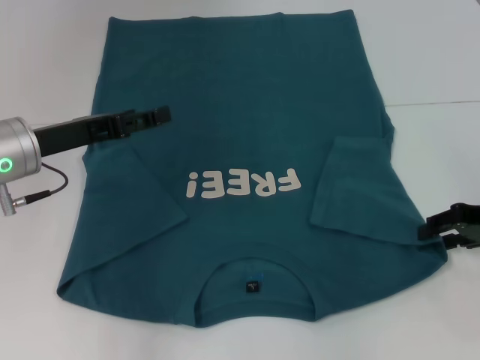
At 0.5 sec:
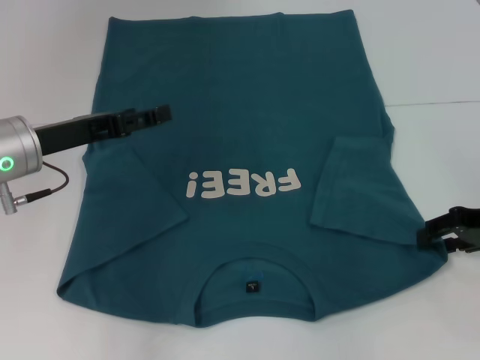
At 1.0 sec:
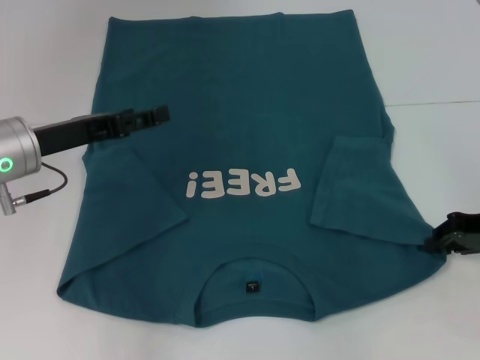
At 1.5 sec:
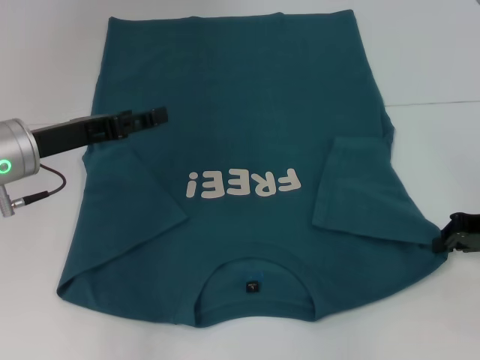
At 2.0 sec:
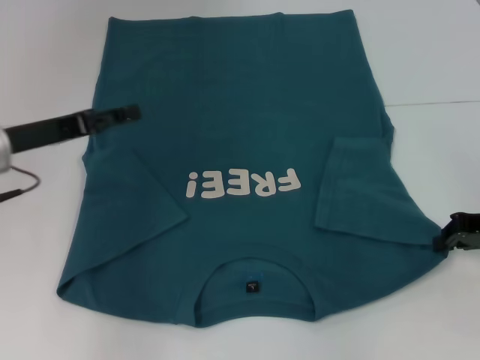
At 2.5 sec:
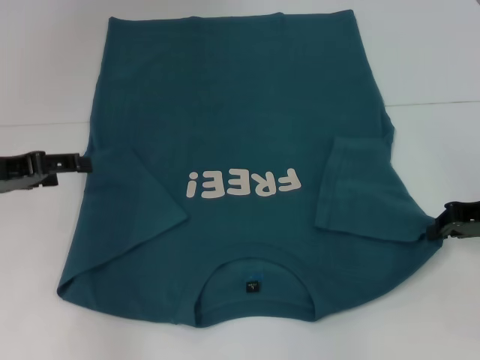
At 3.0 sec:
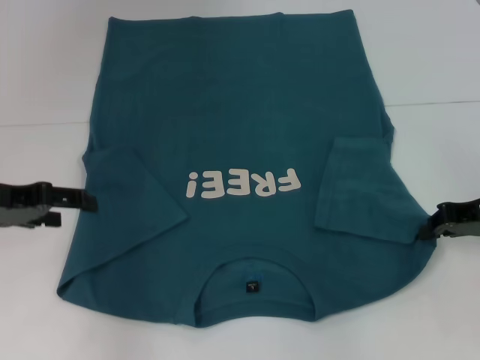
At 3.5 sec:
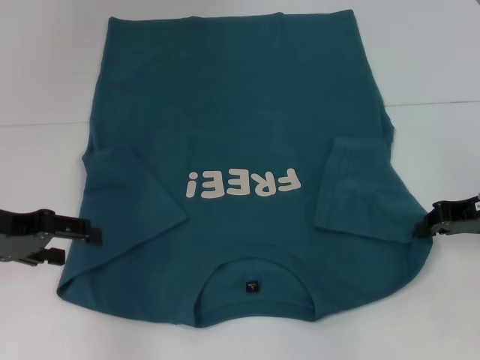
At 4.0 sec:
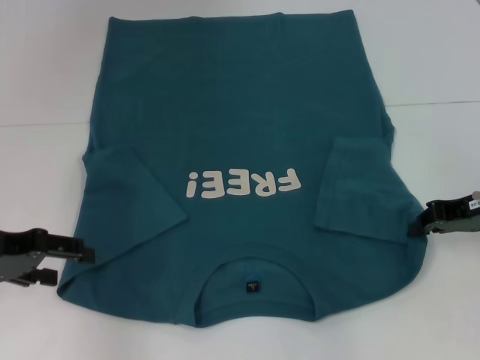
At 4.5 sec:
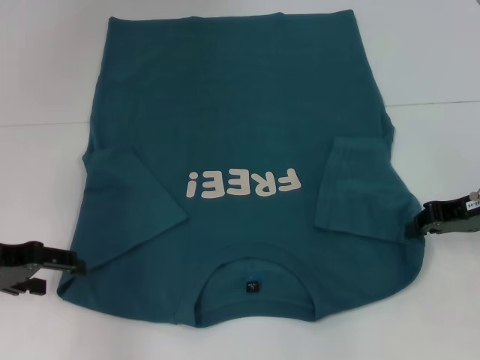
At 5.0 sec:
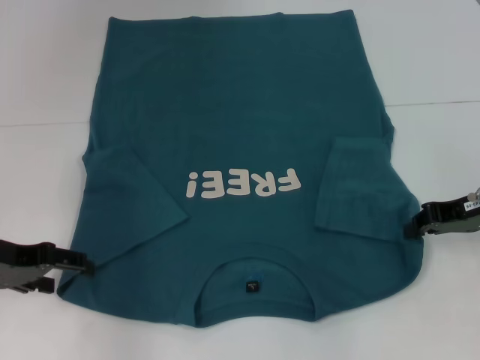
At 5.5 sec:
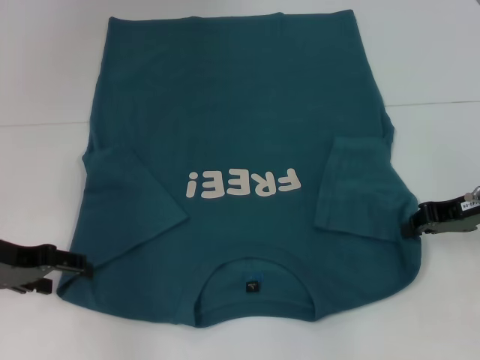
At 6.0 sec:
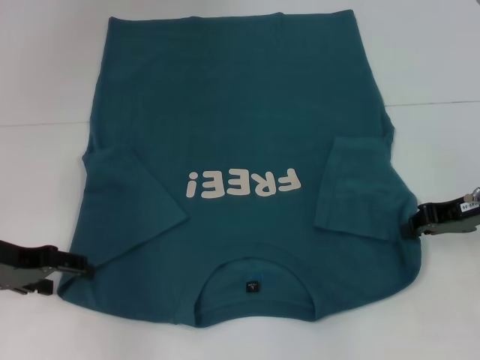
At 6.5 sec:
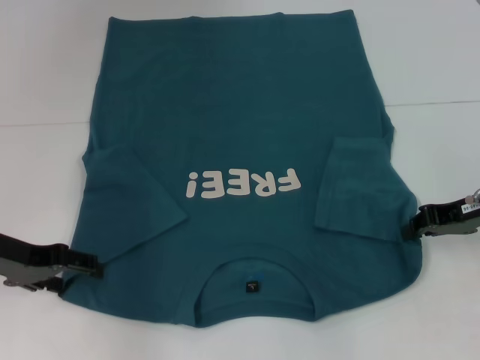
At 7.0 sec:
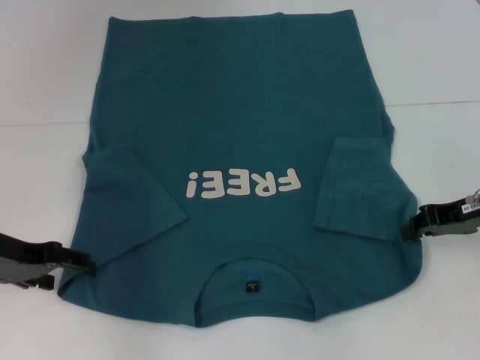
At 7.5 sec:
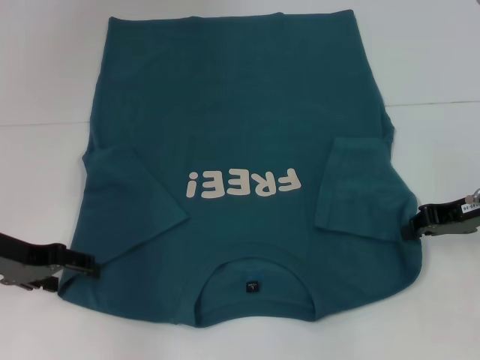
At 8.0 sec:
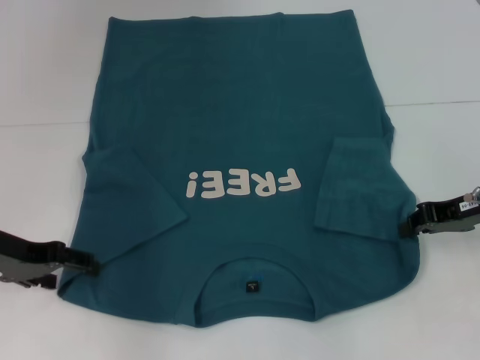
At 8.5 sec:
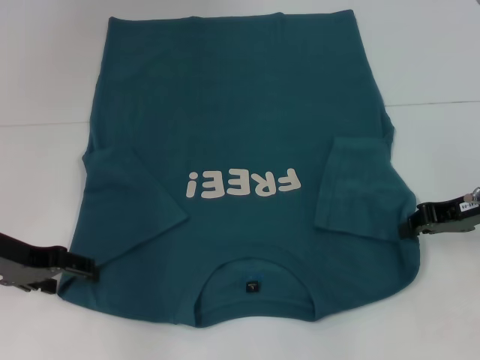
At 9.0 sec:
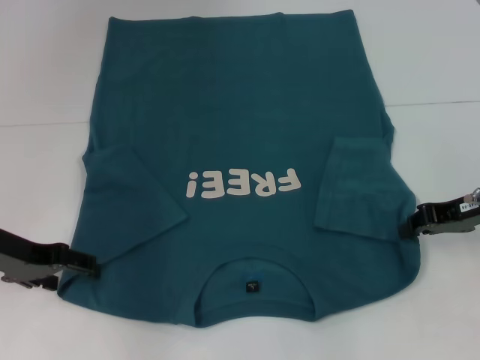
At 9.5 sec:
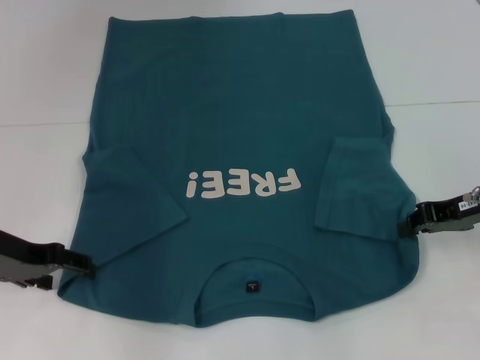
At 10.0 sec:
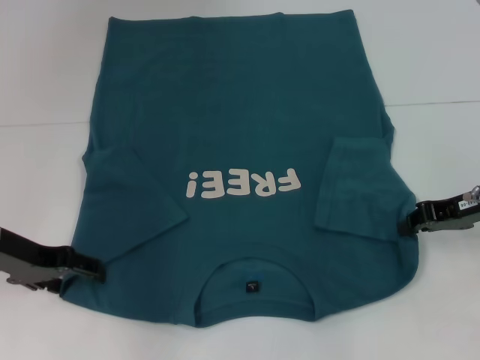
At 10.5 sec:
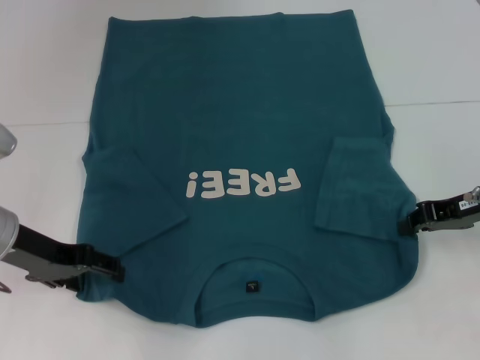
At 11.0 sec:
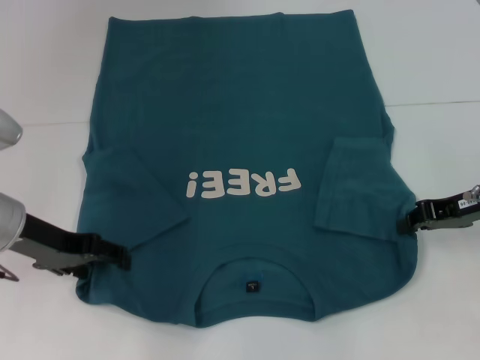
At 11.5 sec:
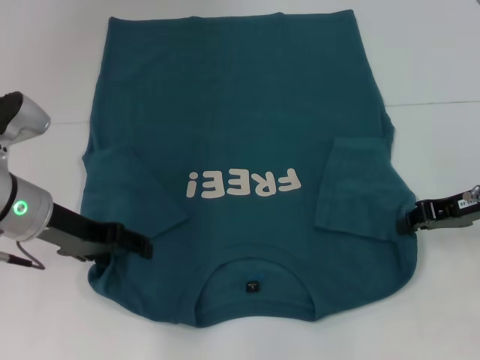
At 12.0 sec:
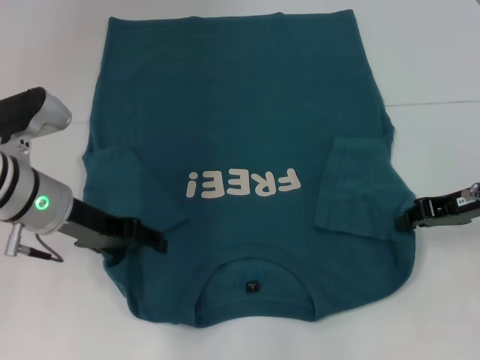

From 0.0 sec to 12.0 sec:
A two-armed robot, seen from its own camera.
From 0.0 sec to 2.0 sec: The right gripper closes.
From 2.0 sec to 4.0 sec: The left gripper is displaced backward by roughly 5 cm.
From 4.0 sec to 6.0 sec: The grippers move only a little.
From 6.0 sec to 8.0 sec: Both grippers stay put.
From 8.0 sec to 10.0 sec: The two grippers keep their place.
From 10.0 sec to 12.0 sec: The left gripper is displaced to the right by about 5 cm.

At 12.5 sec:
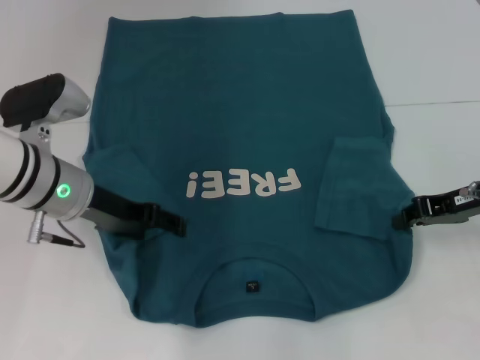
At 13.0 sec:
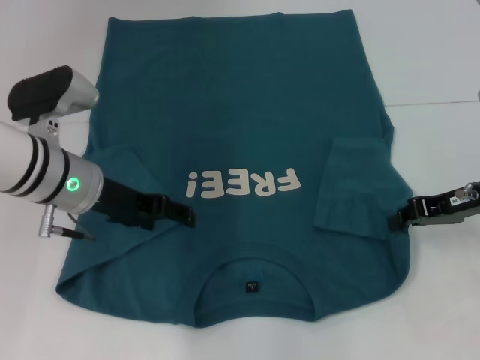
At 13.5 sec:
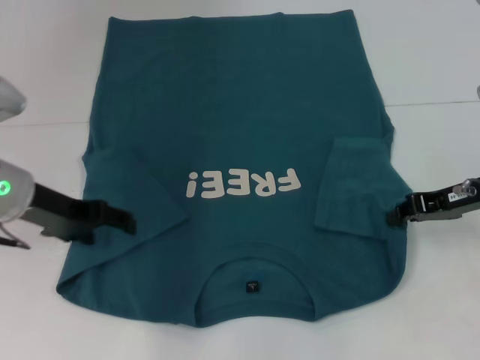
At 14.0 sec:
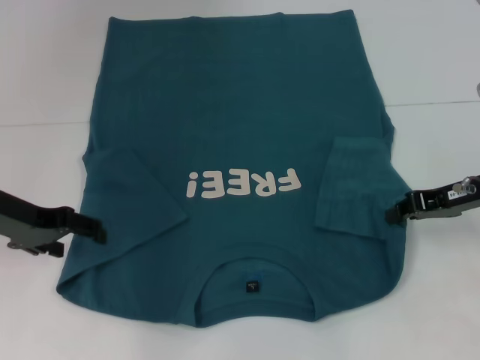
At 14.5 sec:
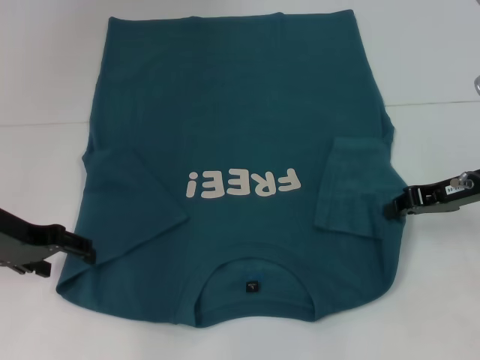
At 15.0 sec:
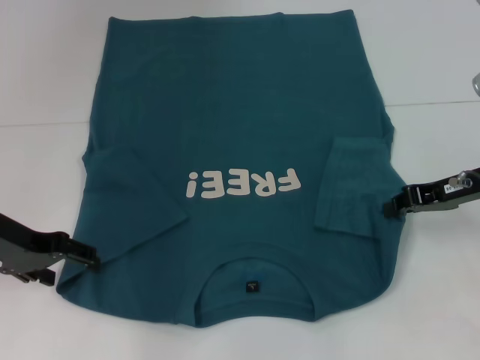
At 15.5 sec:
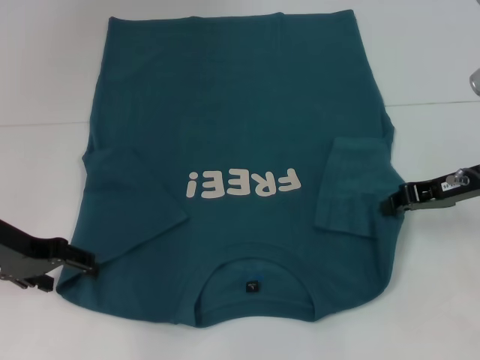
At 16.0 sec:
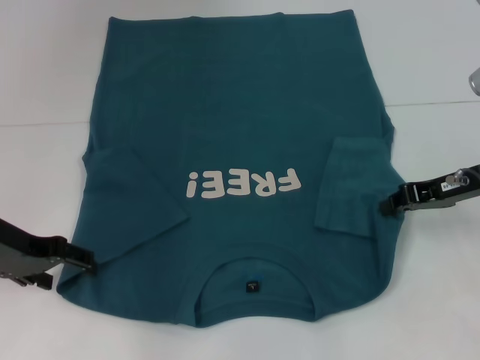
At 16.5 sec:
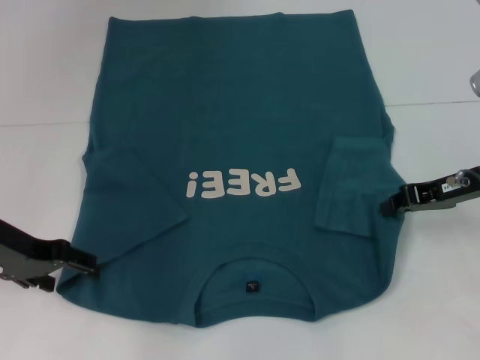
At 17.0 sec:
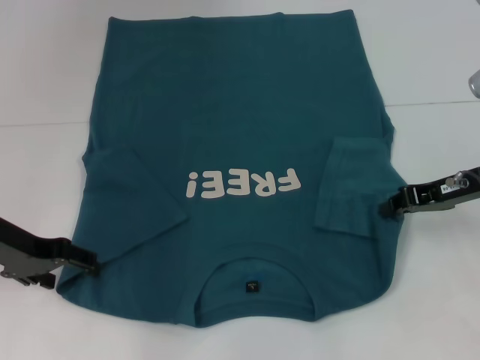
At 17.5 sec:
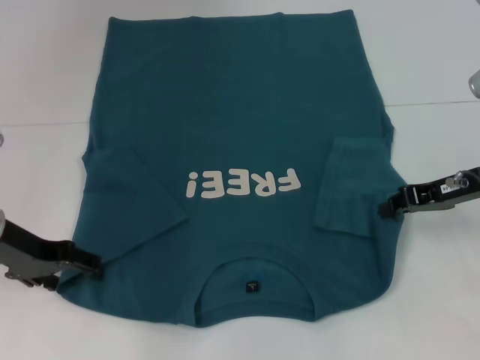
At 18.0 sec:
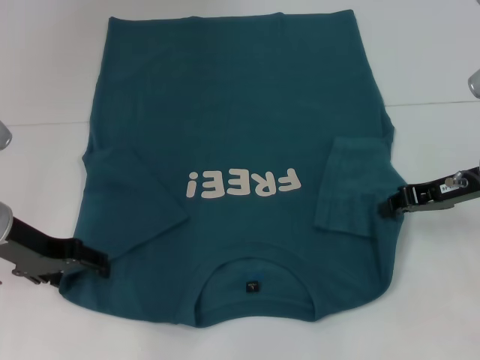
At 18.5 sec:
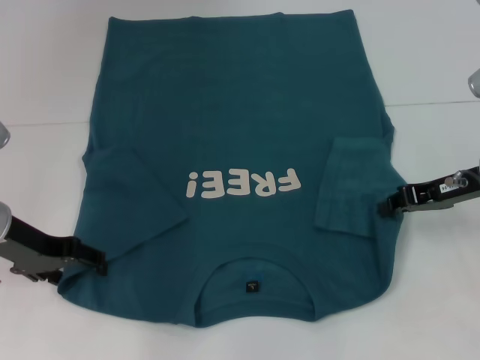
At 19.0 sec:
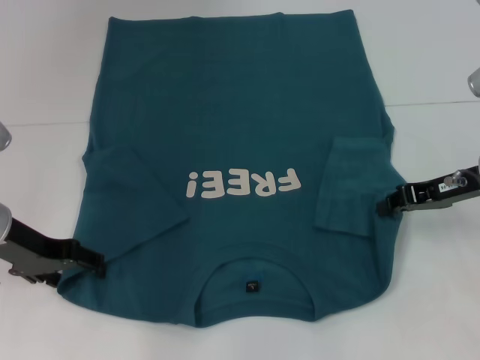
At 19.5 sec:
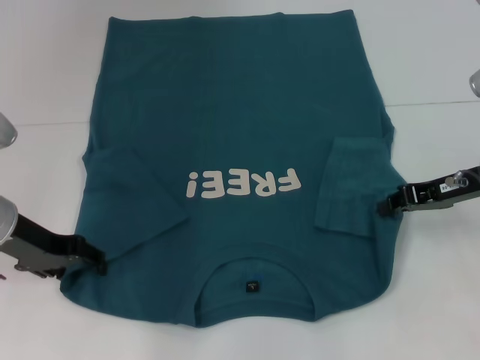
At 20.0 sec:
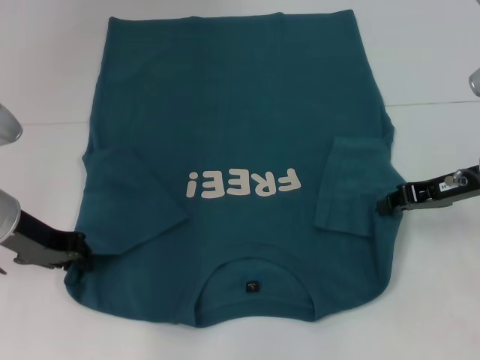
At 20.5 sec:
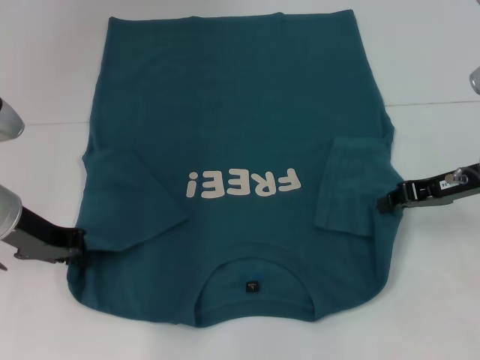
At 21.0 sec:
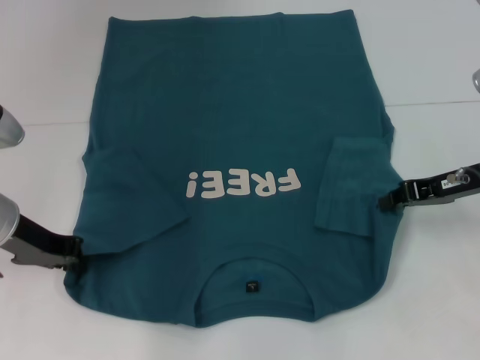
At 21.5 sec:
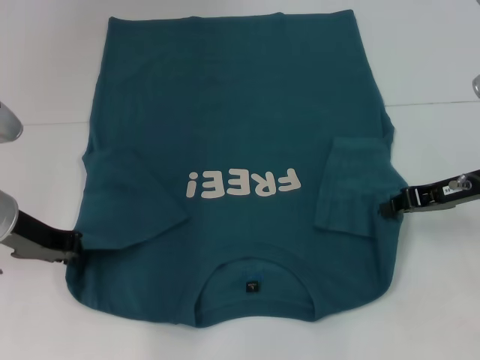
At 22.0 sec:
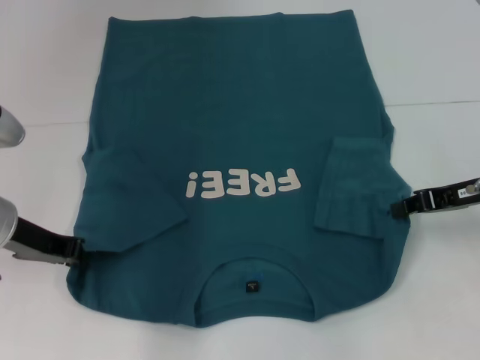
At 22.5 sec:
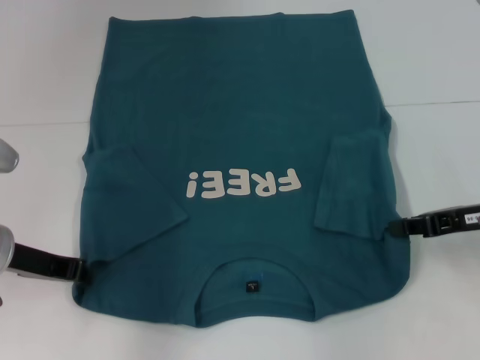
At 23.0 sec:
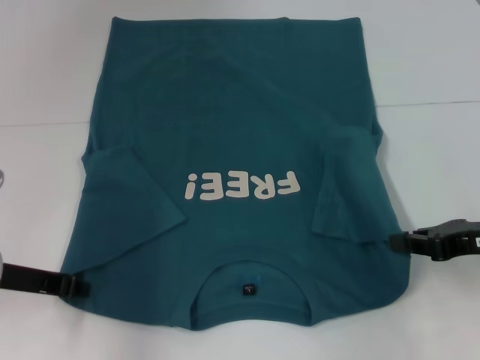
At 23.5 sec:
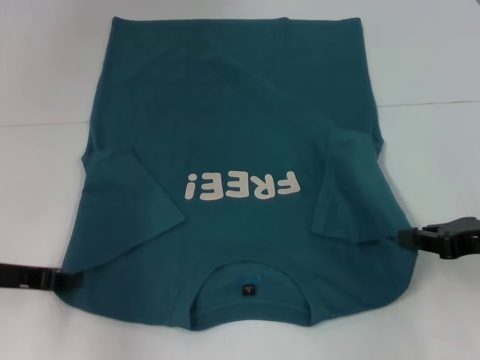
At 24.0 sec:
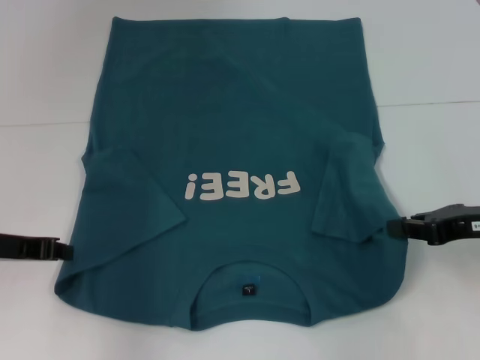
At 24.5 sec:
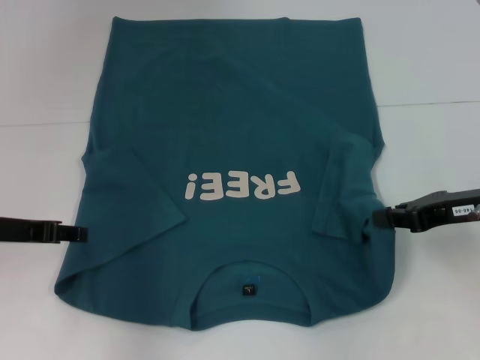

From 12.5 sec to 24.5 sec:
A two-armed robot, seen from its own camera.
From 12.5 sec to 14.5 sec: The left gripper moves to the left, roughly 10 cm.
From 14.5 sec to 16.5 sec: The two grippers keep their place.
From 16.5 sec to 18.5 sec: There are only small adjustments of the grippers.
From 18.5 sec to 20.5 sec: The left gripper closes.
From 20.5 sec to 22.5 sec: The right gripper ends up roughly 5 cm from where it was.
From 22.5 sec to 24.5 sec: The grippers make only small movements.

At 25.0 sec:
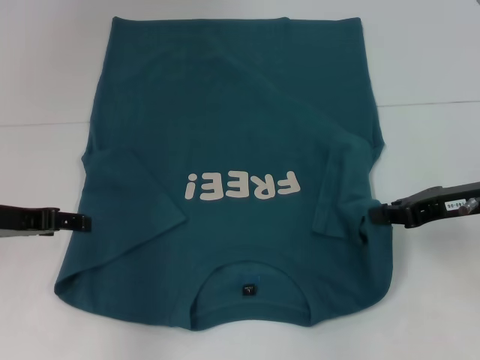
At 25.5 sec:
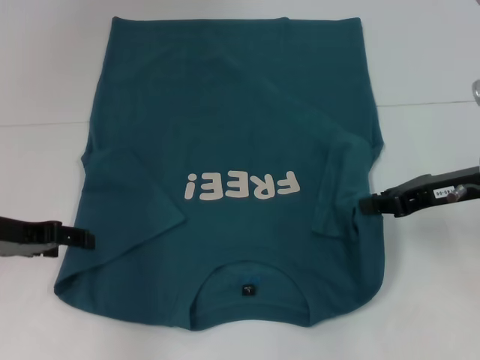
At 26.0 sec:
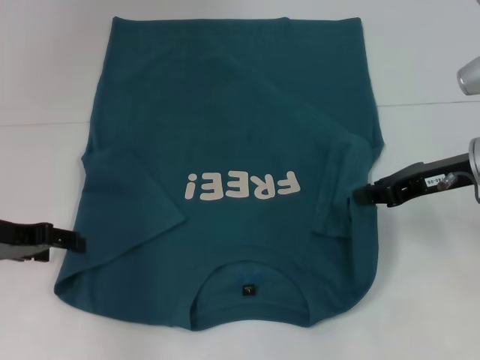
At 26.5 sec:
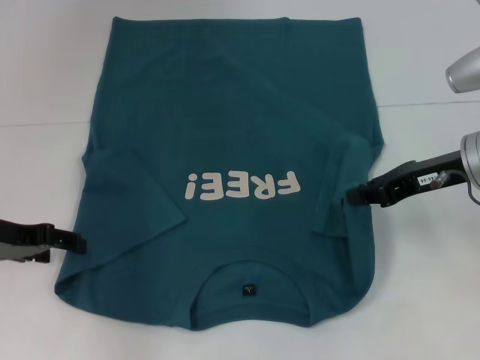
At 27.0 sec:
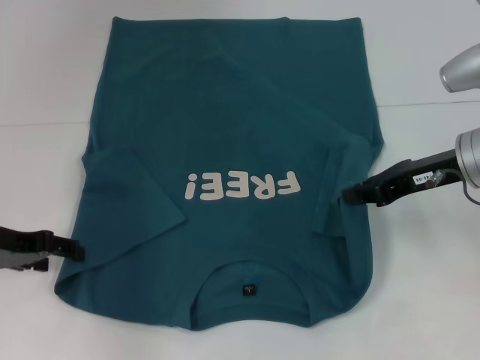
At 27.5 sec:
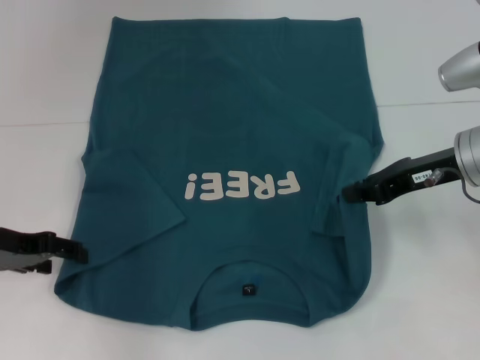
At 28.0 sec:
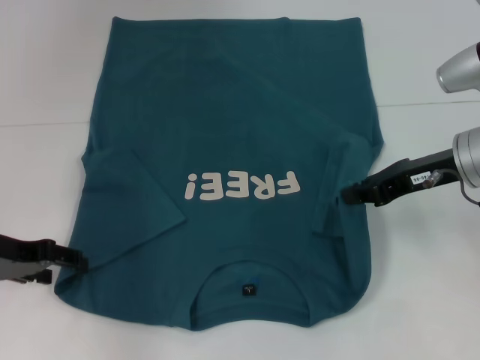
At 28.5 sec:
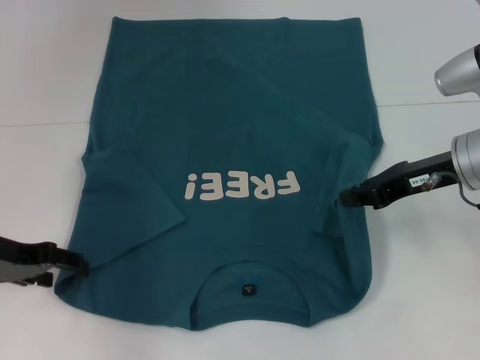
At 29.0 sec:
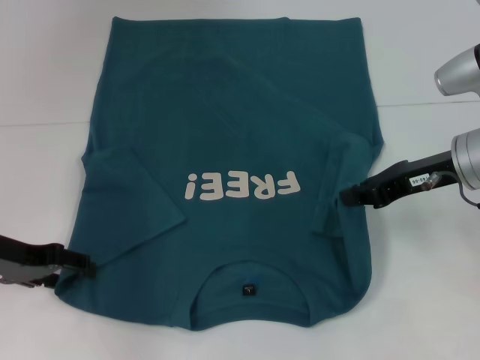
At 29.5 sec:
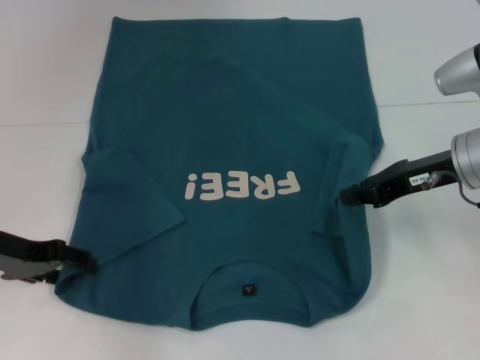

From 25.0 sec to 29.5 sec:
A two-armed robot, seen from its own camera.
From 25.0 sec to 27.0 sec: The right gripper ends up about 5 cm from where it was.
From 27.0 sec to 29.5 sec: The grippers move only a little.
